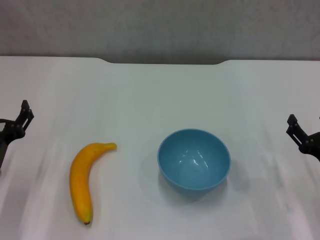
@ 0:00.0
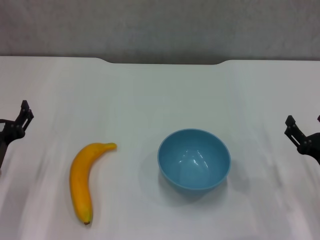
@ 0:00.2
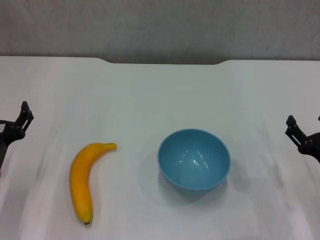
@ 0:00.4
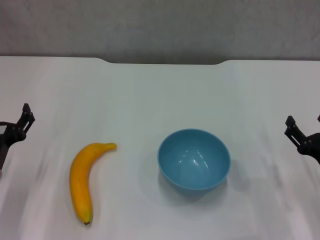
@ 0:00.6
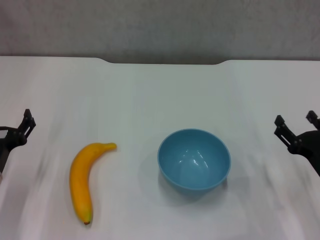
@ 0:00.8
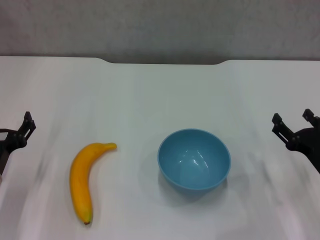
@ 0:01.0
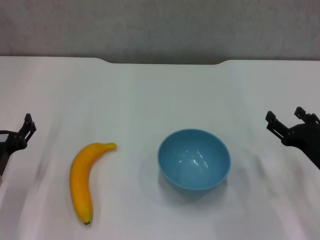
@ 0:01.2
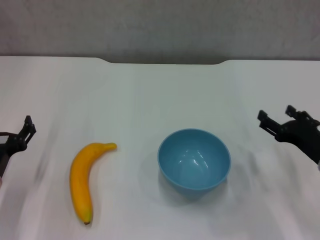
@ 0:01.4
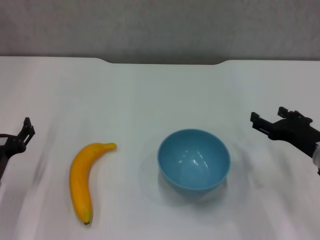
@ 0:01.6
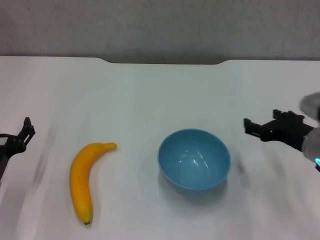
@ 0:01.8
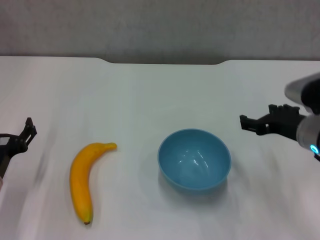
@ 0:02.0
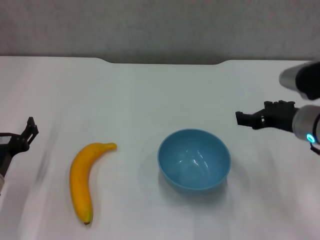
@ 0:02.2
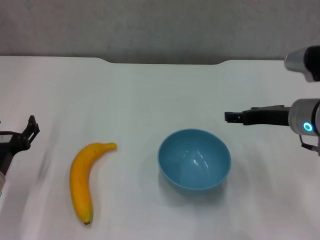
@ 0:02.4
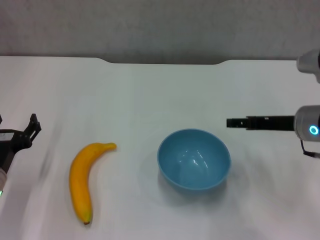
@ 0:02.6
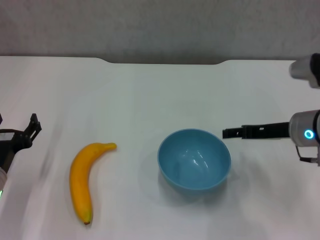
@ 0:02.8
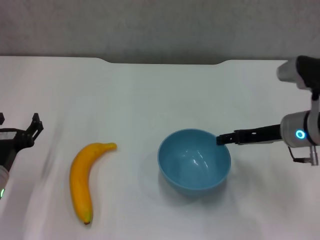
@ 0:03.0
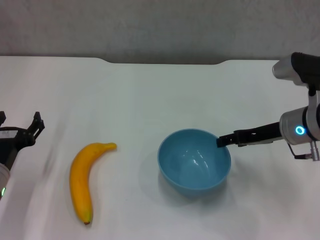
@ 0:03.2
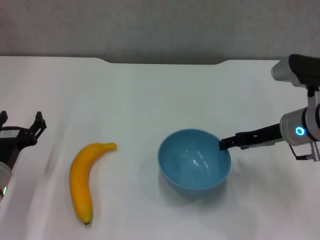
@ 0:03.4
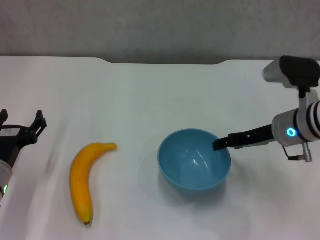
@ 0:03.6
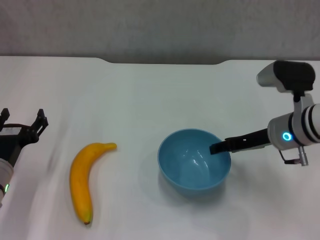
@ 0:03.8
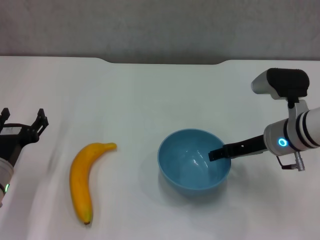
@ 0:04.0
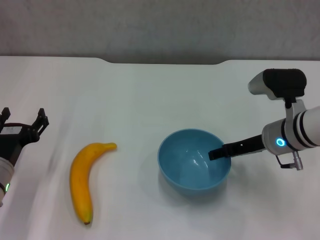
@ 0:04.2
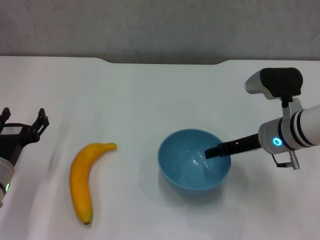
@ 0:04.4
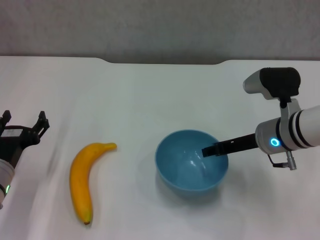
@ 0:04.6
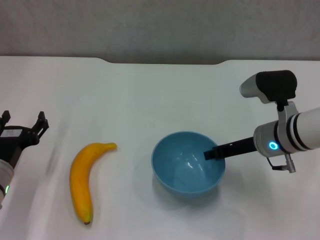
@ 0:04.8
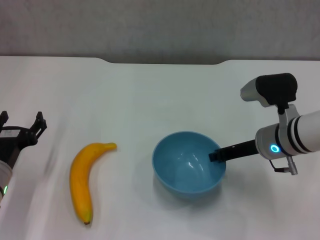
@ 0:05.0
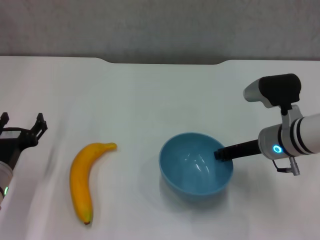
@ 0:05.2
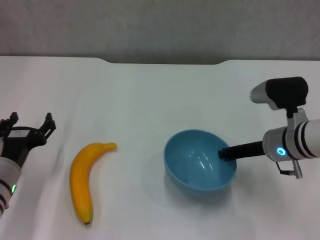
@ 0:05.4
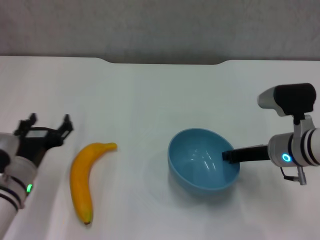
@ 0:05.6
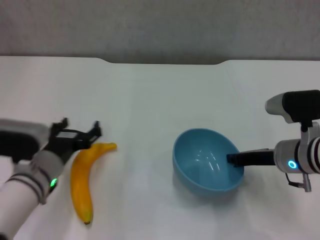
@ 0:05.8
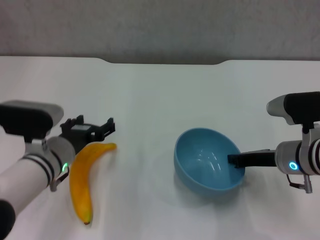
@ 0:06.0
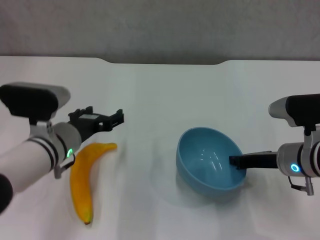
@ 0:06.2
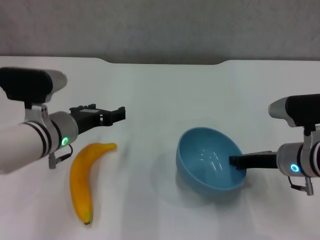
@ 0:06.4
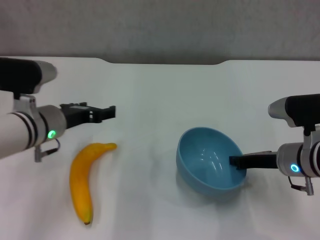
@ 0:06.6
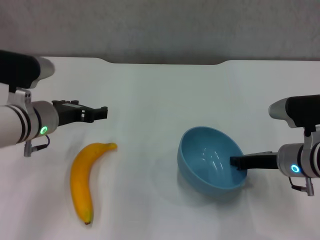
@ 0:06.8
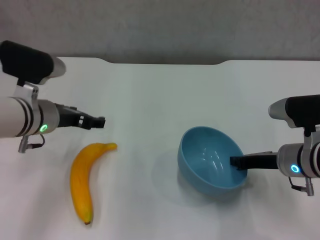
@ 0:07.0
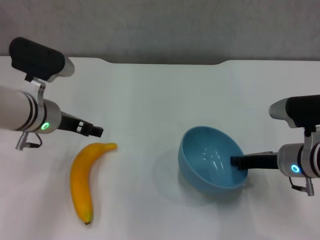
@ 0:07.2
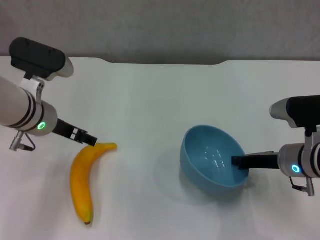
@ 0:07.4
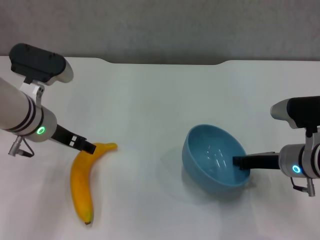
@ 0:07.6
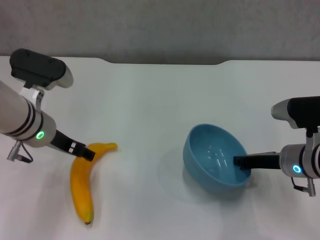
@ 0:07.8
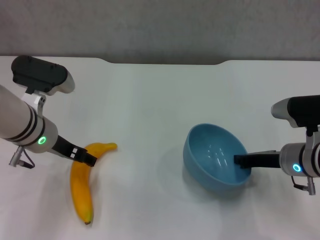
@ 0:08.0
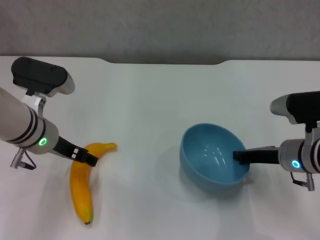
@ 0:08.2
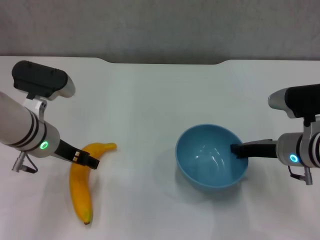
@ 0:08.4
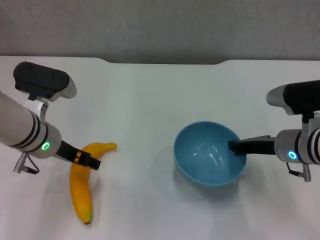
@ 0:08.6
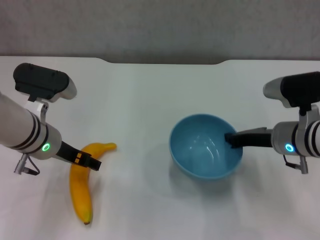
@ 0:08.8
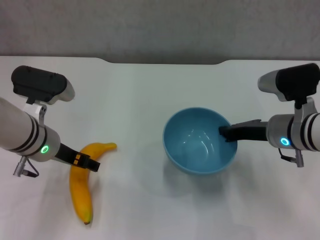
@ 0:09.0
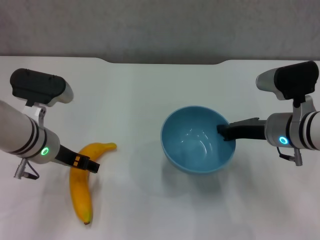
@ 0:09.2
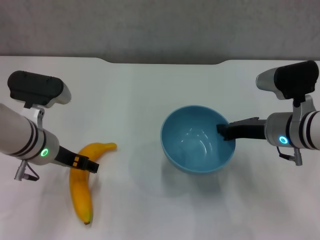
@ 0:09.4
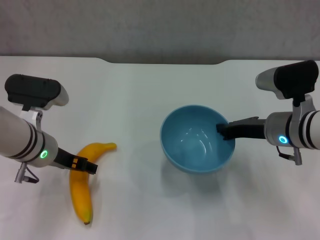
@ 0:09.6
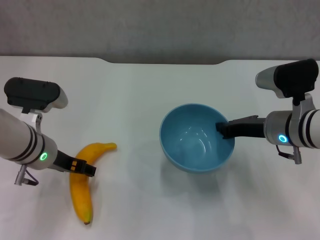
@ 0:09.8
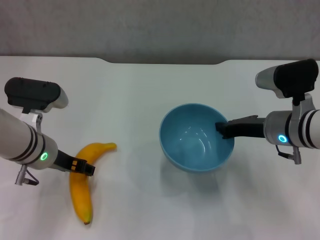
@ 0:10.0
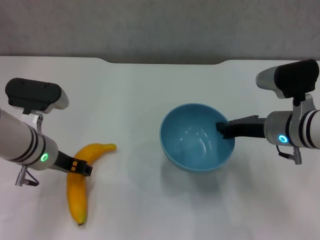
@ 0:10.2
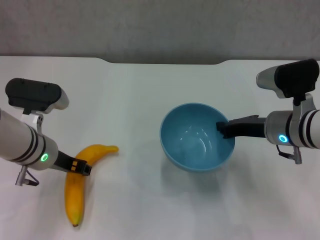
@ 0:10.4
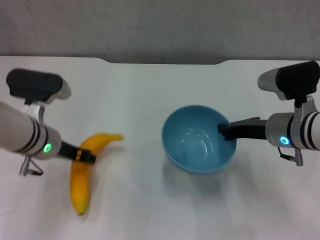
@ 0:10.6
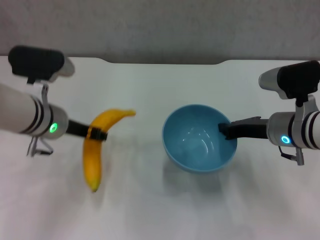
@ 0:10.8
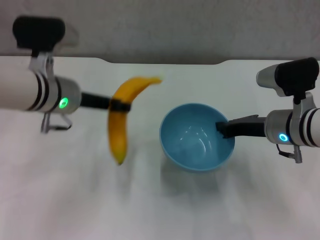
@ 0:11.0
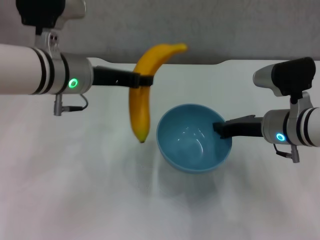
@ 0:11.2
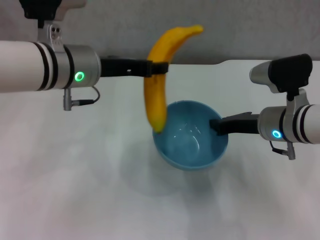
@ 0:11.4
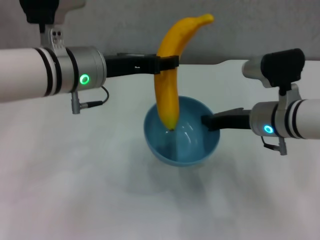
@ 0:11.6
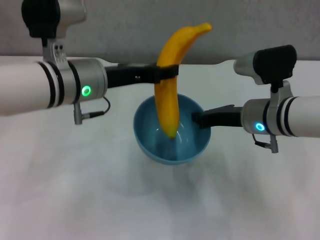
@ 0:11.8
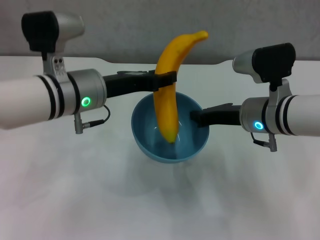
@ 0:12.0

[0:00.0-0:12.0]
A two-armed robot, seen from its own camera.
Step, 0:00.0 to 0:05.0: Grasp the blue bowl with right gripper.
Step, 0:05.4 to 0:09.0: Lift the blue bowl with right gripper.
Step, 0:09.2 to 0:10.2: Grasp the banana with left gripper.
0:00.0 to 0:01.6: The right gripper shifts approximately 5 cm forward.
0:01.6 to 0:03.0: The right gripper goes roughly 5 cm forward.
0:03.0 to 0:04.4: The grippers stay close to where they were, moving slightly.
0:04.4 to 0:06.0: The left gripper is displaced to the right by approximately 10 cm, while the right gripper moves some 5 cm, and closes its fingers.
0:06.0 to 0:07.6: The left gripper goes about 10 cm upward.
0:07.6 to 0:09.0: The right gripper changes place by roughly 5 cm.
0:09.0 to 0:10.4: The left gripper closes.
0:10.4 to 0:12.0: The left gripper moves upward and to the right, approximately 10 cm.

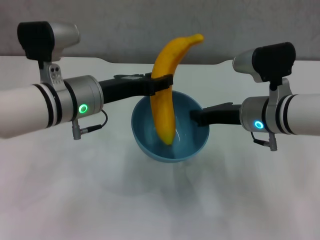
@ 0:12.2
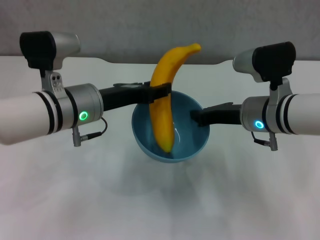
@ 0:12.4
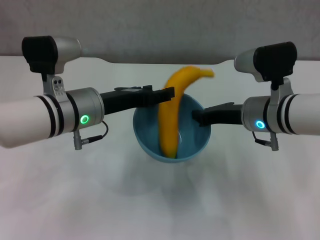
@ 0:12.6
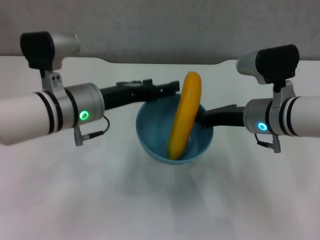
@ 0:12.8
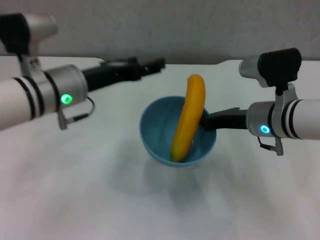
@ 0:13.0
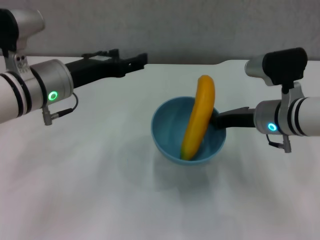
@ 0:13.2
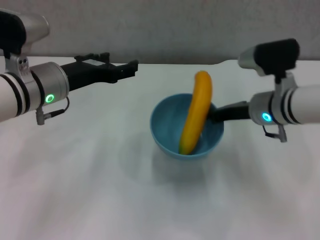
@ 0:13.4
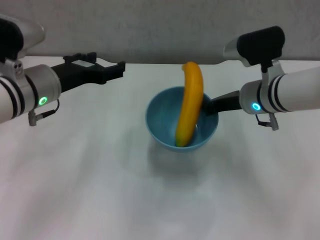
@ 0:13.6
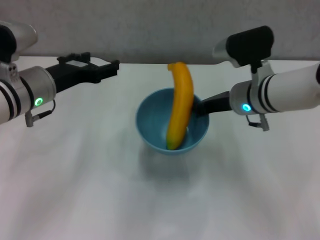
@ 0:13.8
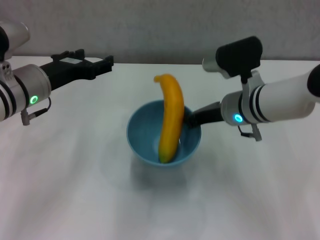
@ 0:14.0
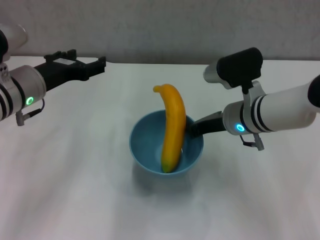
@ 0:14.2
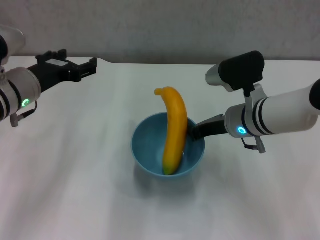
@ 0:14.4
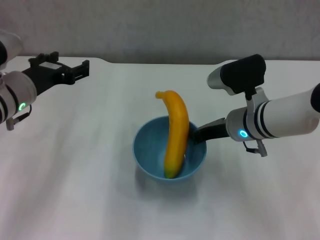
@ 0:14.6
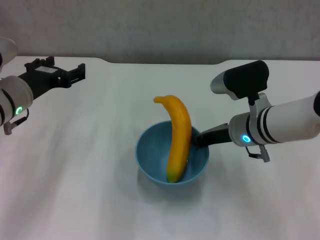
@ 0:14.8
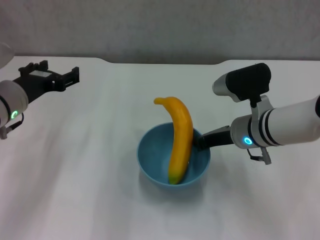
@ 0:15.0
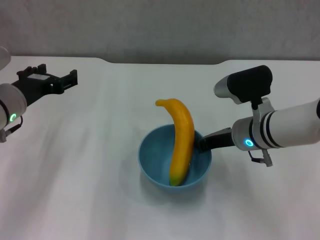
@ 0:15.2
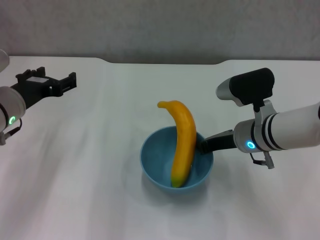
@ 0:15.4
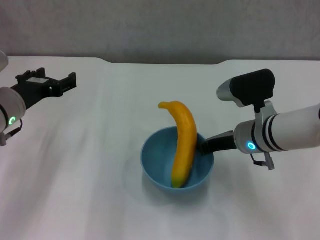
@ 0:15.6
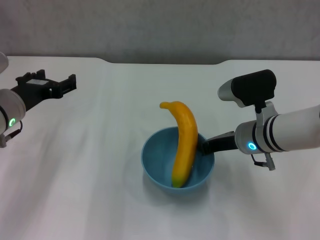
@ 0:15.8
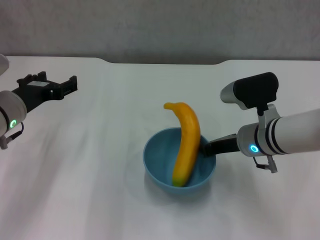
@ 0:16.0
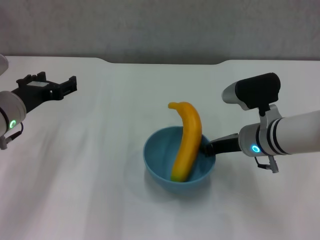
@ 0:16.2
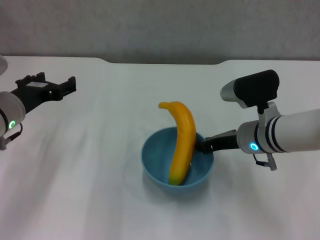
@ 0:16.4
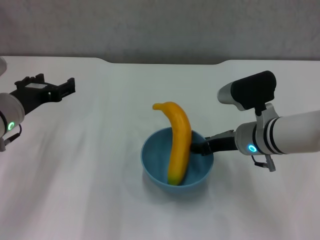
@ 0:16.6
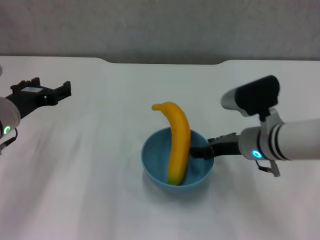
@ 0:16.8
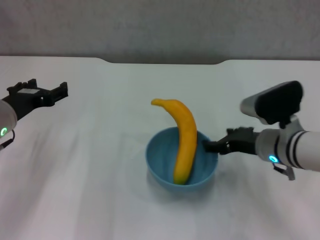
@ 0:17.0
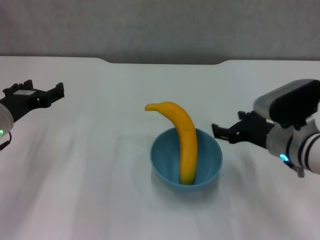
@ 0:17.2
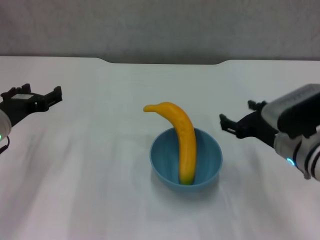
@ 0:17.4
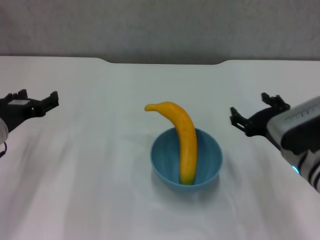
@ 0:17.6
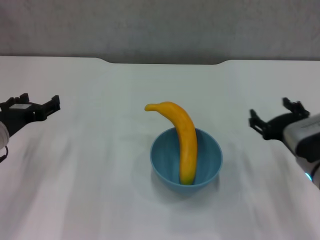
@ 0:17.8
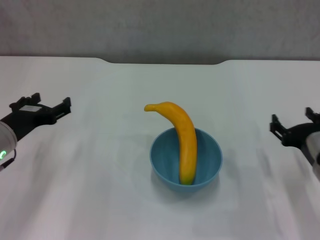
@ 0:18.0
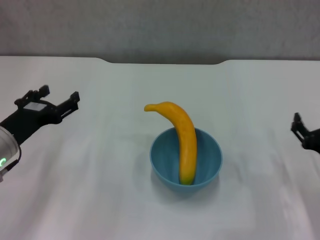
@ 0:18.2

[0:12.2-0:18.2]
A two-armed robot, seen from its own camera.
Step, 0:12.8 to 0:16.8: Place the bowl on the table with right gripper.
0:12.2 to 0:13.8: The left gripper travels to the left by approximately 5 cm, and opens.
0:13.8 to 0:15.2: The right gripper ends up some 5 cm from where it was. Meanwhile the left gripper moves some 5 cm.
0:15.2 to 0:16.6: The right gripper opens.
0:16.6 to 0:18.2: The left gripper moves backward, roughly 5 cm, while the right gripper heads to the right and backward, covering about 15 cm, and opens.
